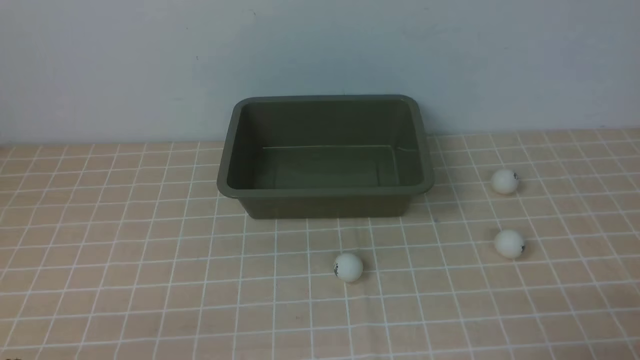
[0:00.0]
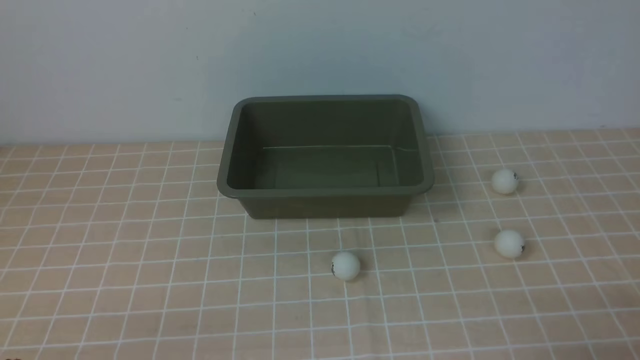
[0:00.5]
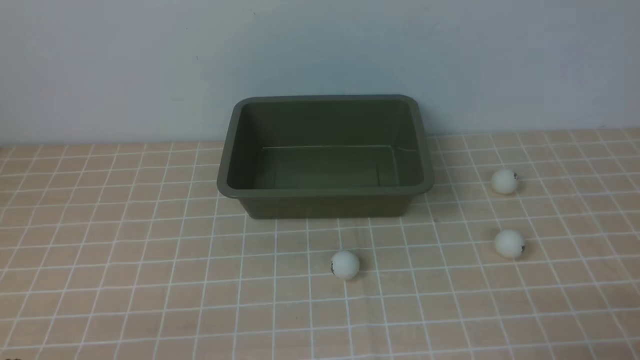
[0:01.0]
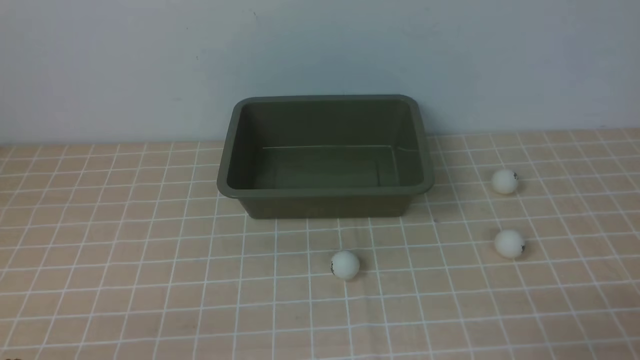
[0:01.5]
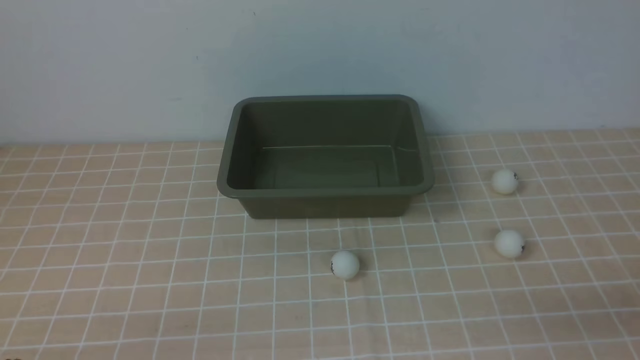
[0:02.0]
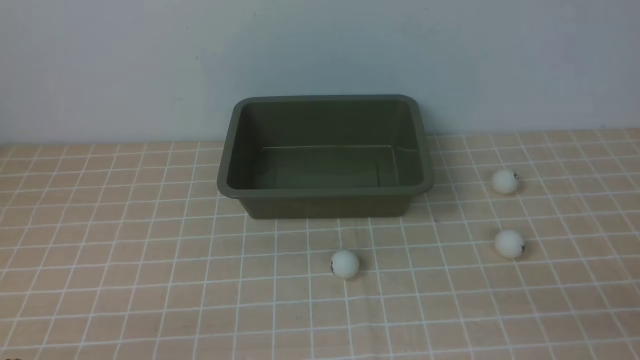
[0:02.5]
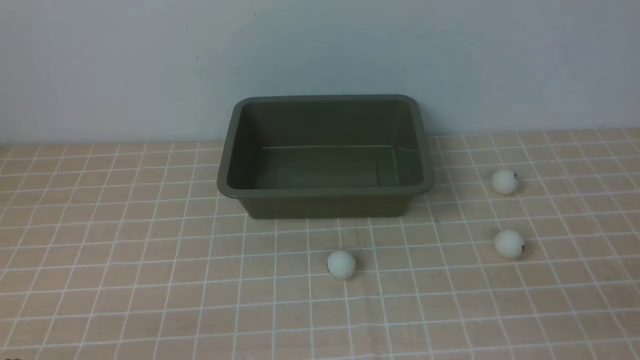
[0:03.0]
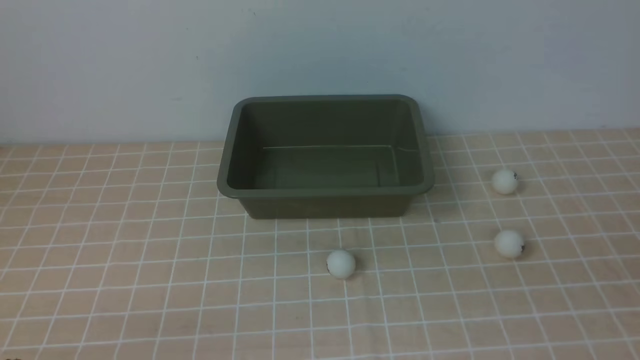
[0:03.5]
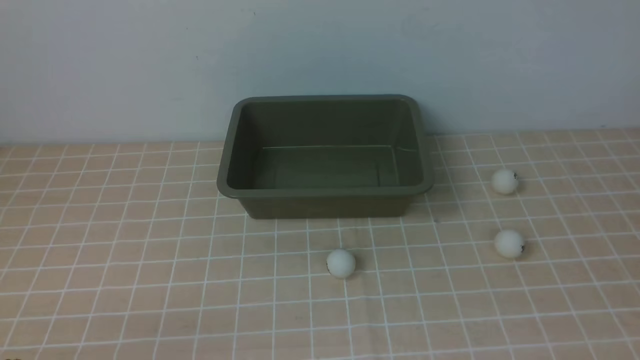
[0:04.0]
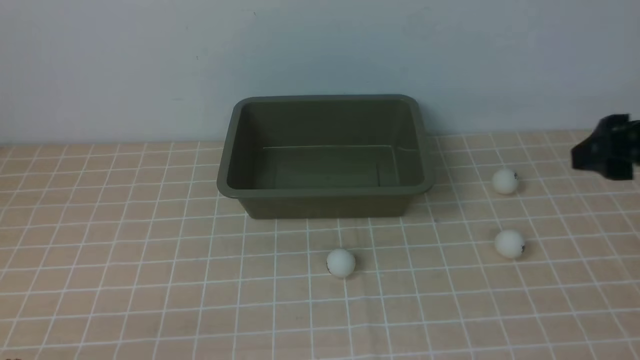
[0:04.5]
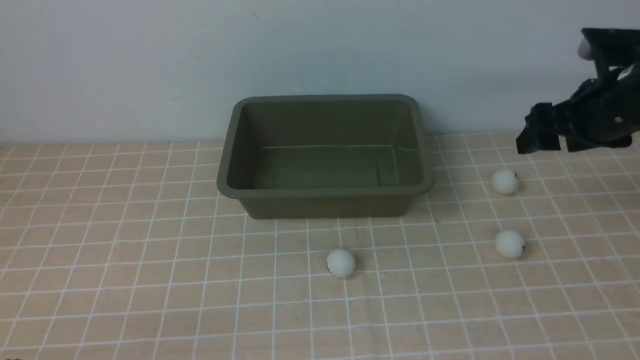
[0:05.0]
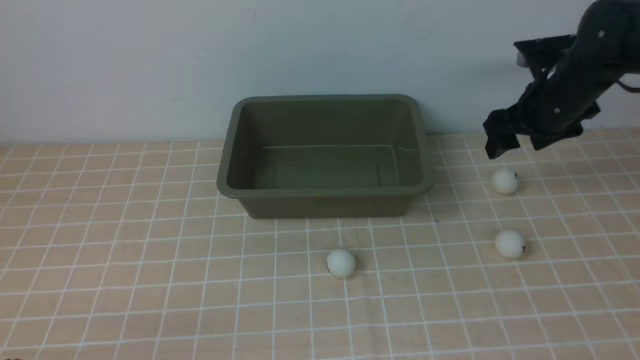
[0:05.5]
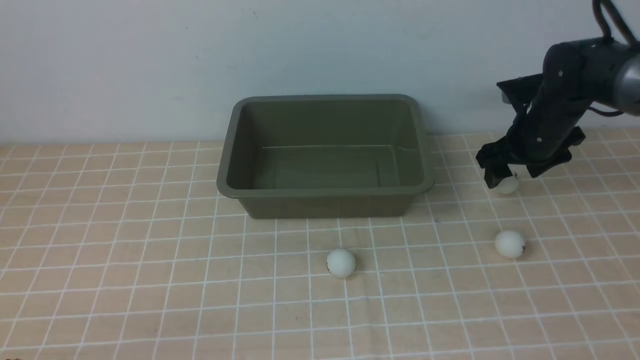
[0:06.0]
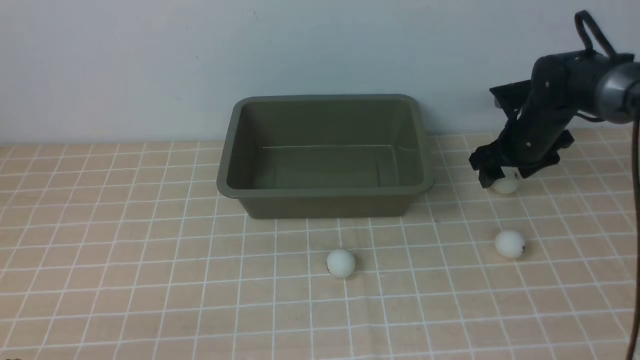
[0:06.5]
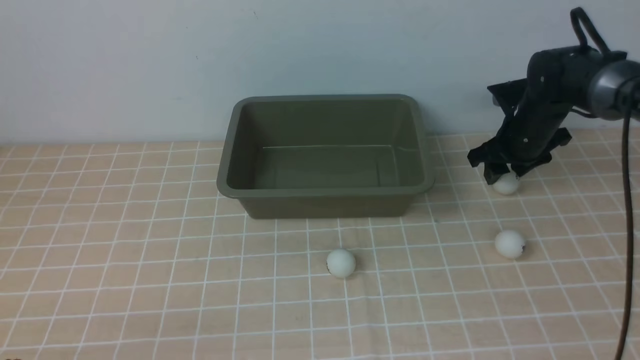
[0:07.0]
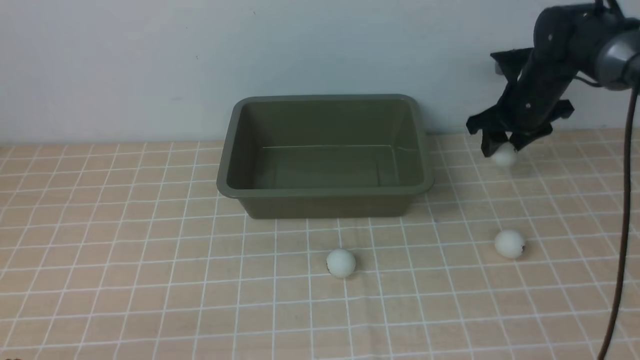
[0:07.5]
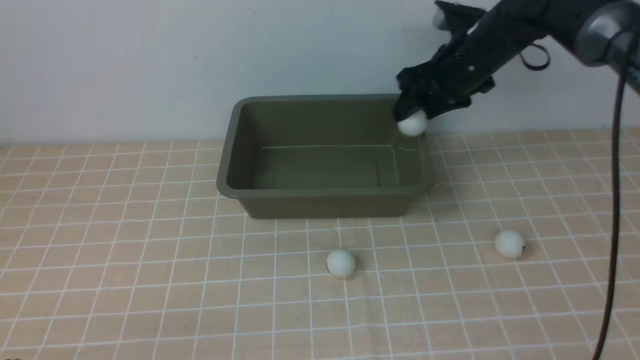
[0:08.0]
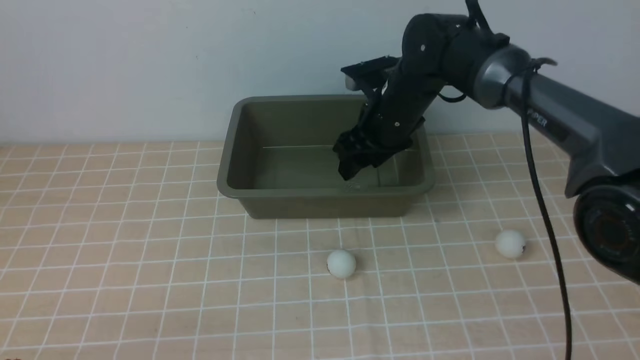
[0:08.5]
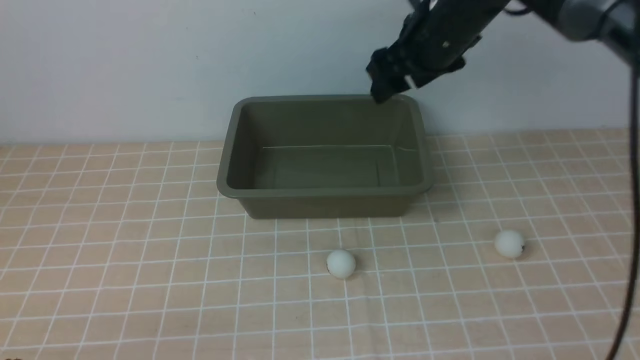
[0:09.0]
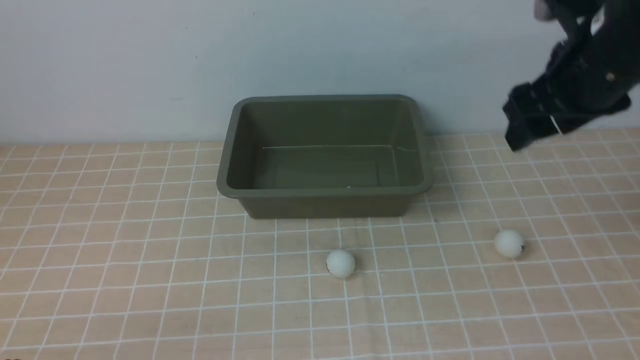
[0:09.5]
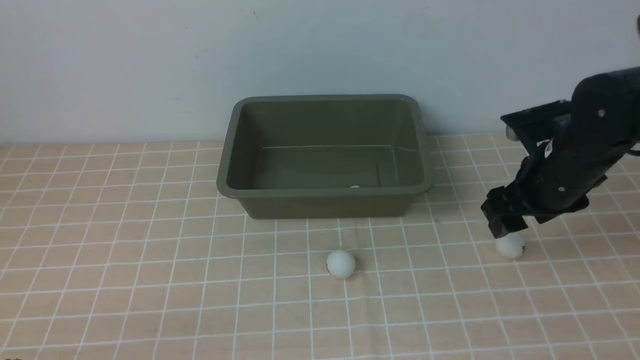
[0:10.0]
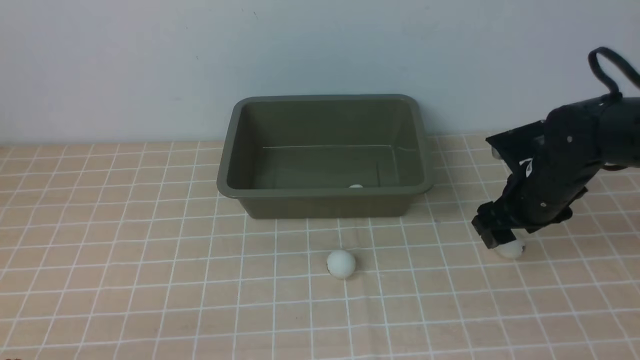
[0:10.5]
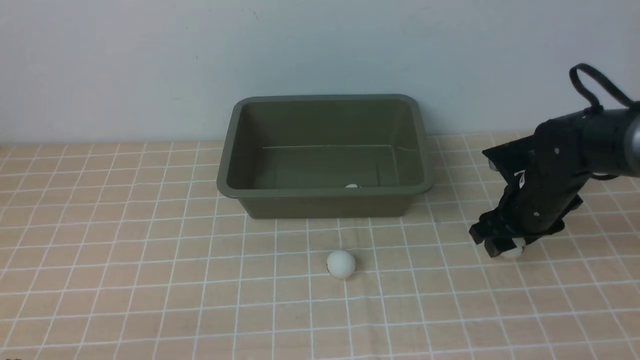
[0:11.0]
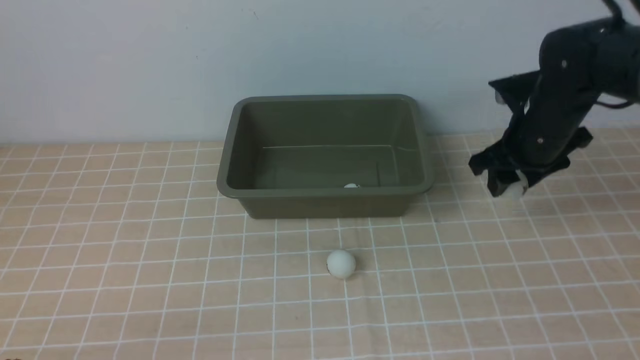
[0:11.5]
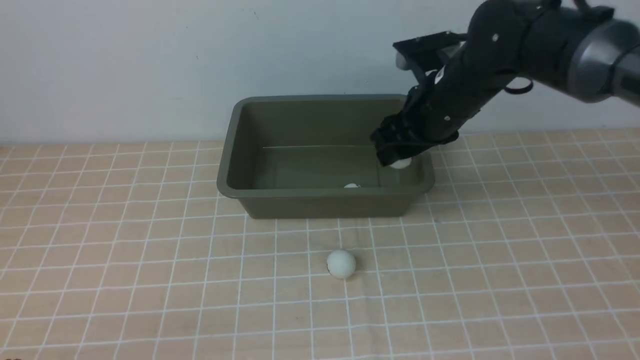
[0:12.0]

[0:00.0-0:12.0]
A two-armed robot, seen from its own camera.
Step, 0:00.0 to 0:07.0: use the right arm to clamp the table tennis ball closest to it.
Step, 0:08.0 to 0:08.5: use the right arm to put the table tennis ball into the box.
Step, 0:09.0 to 0:11.0: use the right arm to clamp the table tennis ball closest to it.
0:04.0 to 0:06.0: The right gripper heads forward and downward, covering about 40 cm.
0:06.0 to 0:08.0: The right gripper shifts approximately 15 cm to the left and upward, and closes up.
0:08.0 to 0:10.0: The right gripper travels backward and to the right by approximately 15 cm.
0:10.0 to 0:12.0: The right gripper travels to the left and forward by approximately 15 cm.

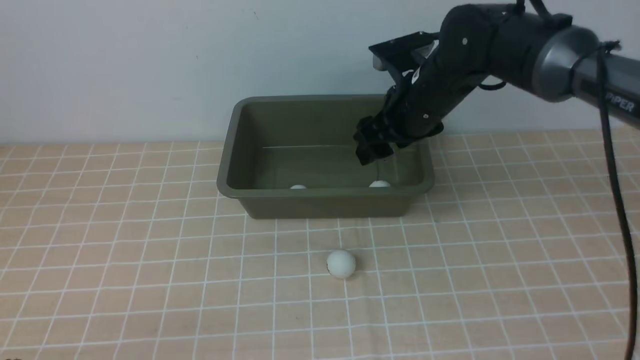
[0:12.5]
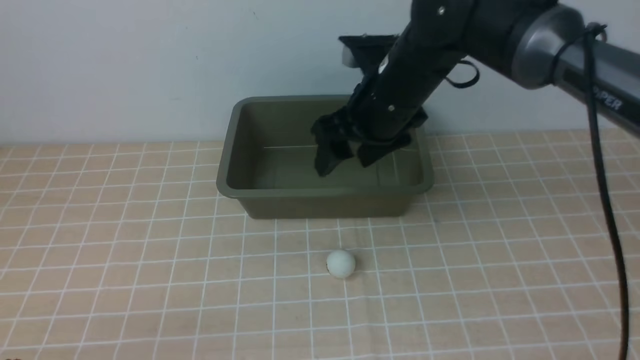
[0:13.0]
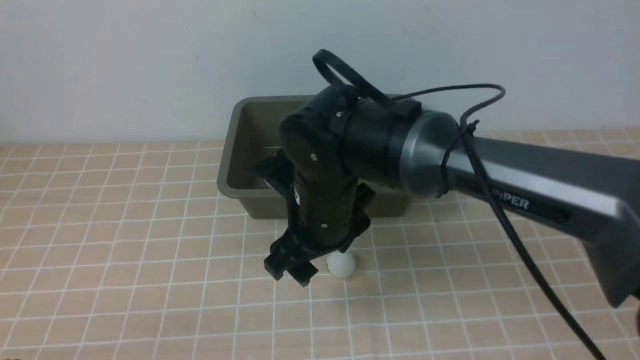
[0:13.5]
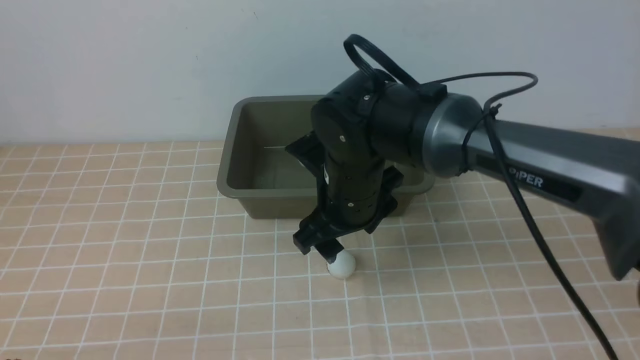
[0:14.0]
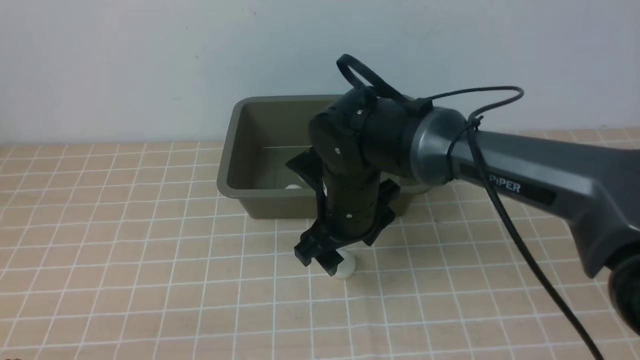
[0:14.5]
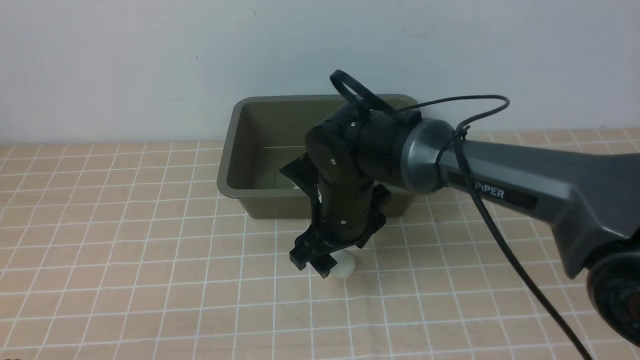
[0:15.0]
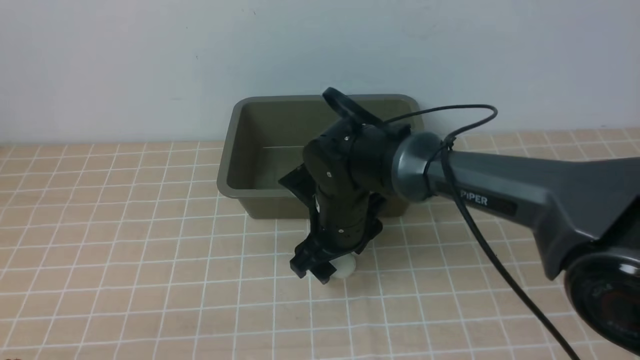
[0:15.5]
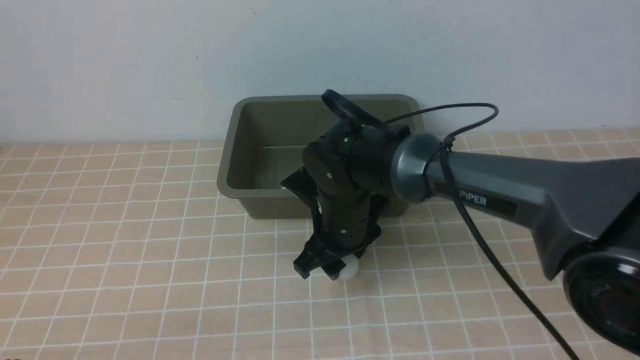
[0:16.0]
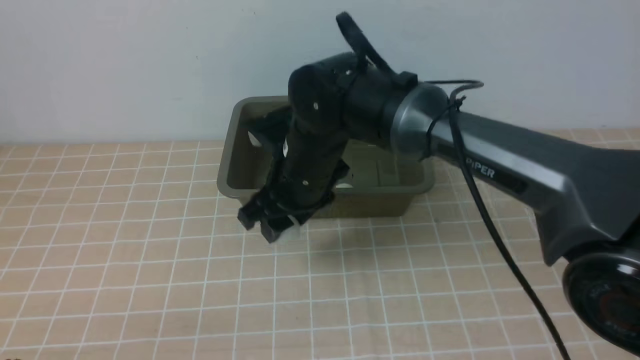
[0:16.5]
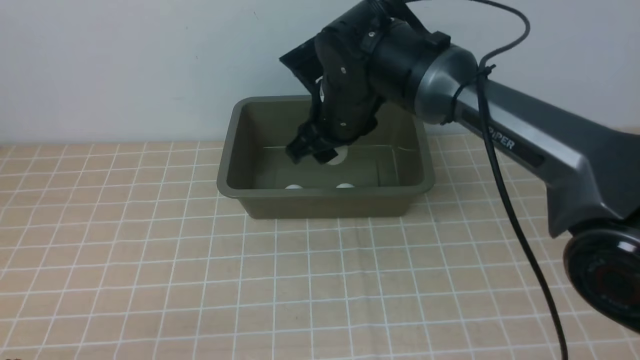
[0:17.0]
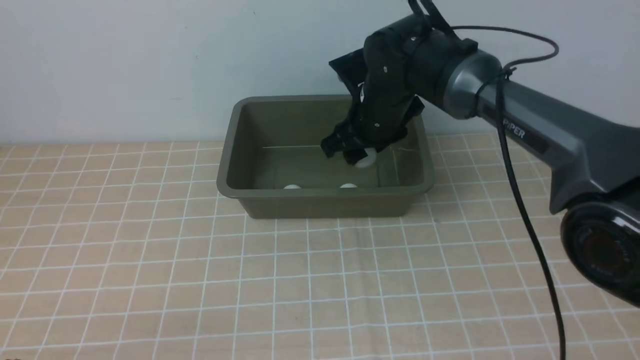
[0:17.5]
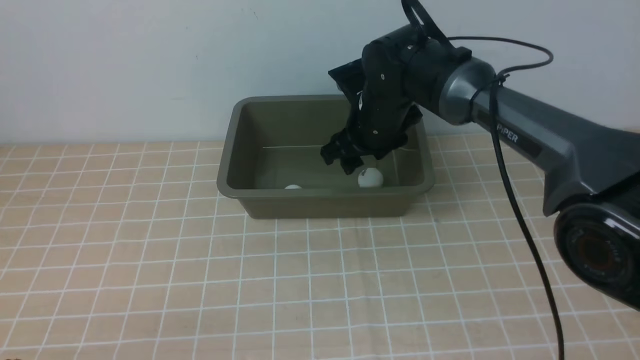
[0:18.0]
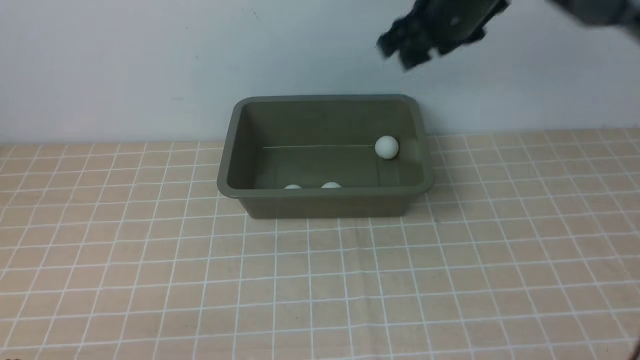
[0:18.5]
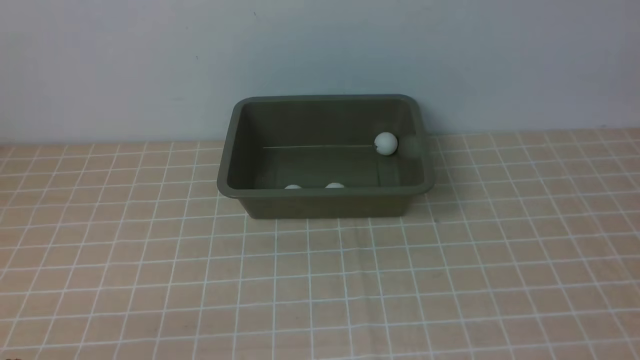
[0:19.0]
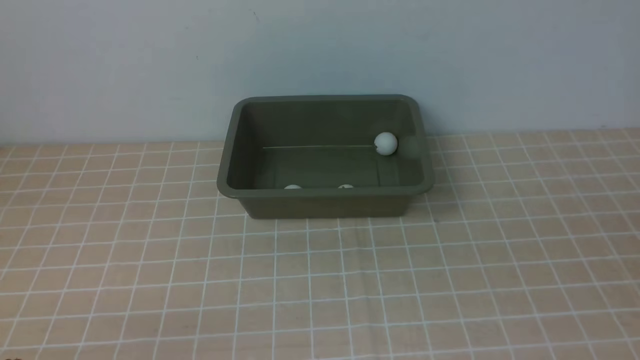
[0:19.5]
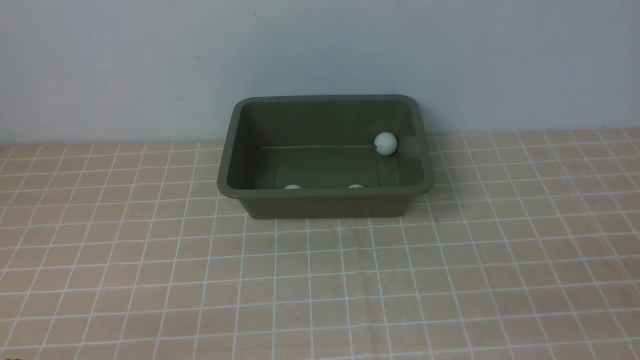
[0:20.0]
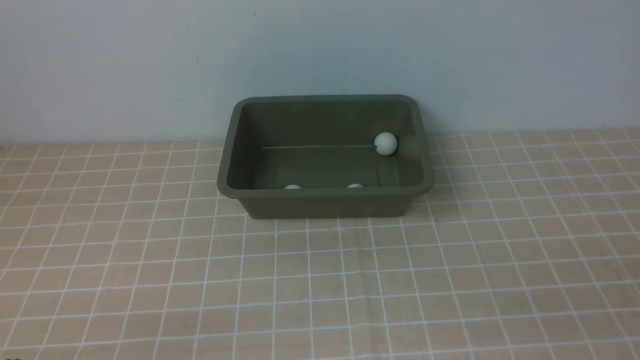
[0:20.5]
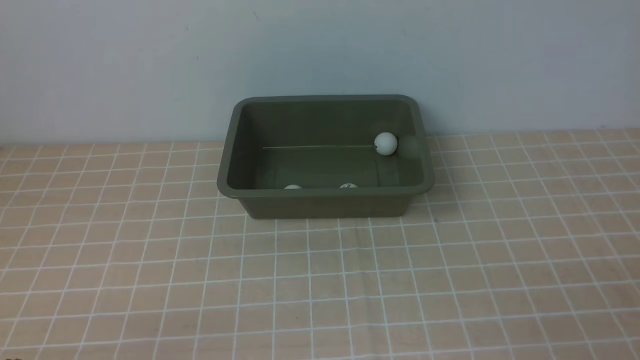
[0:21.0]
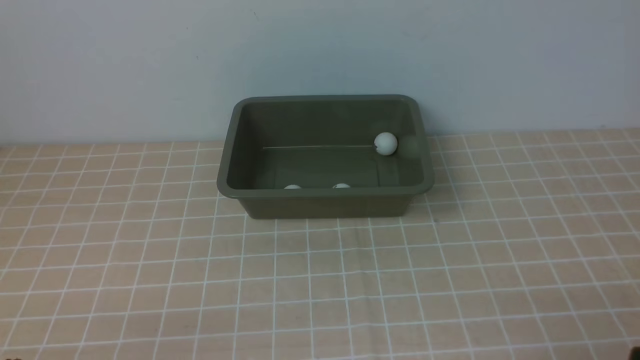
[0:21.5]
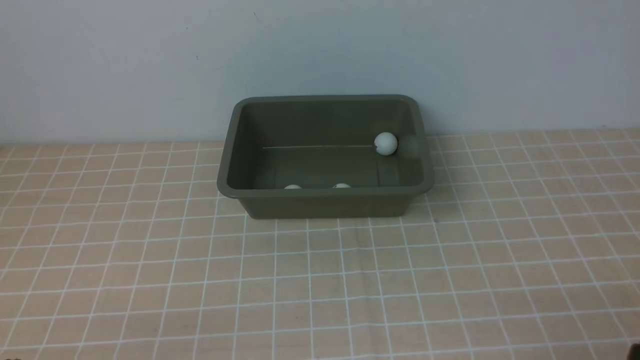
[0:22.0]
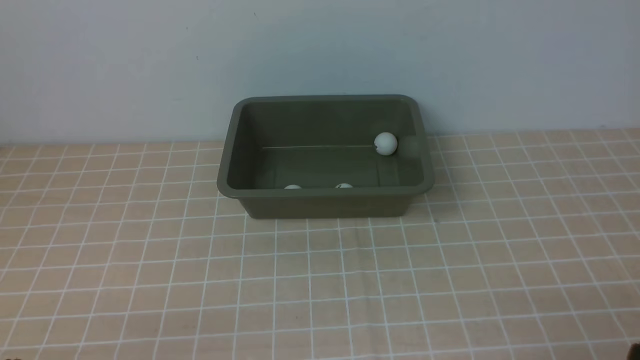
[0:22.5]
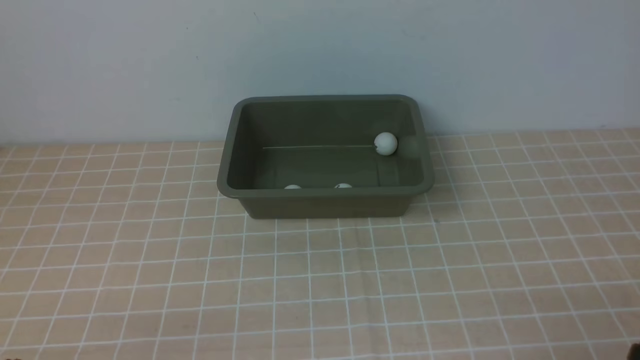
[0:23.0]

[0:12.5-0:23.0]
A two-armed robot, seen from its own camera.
Step, 0:13.0 to 0:16.0: use the right arm to clamp the table tennis ball closest to it.
Step, 0:16.5 to 0:18.0: use the right arm to put the table tennis ball into the box.
0:12.5 to 0:14.5: The right gripper shifts approximately 15 cm to the left, backward and downward.
0:14.5 to 0:16.5: The right gripper ends up roughly 5 cm from where it was.
0:16.5 to 0:19.0: The right gripper heads to the right, upward and backward, covering roughly 40 cm, and closes.
